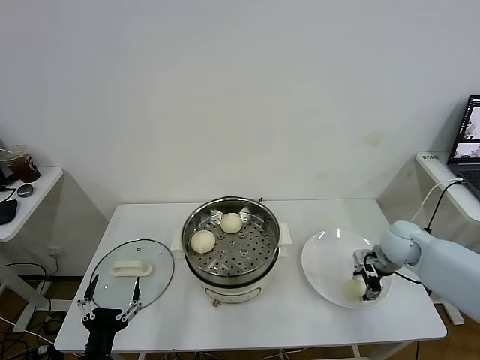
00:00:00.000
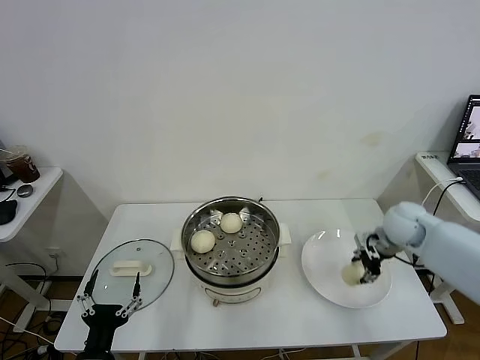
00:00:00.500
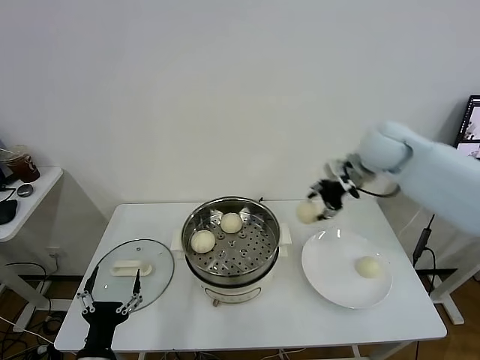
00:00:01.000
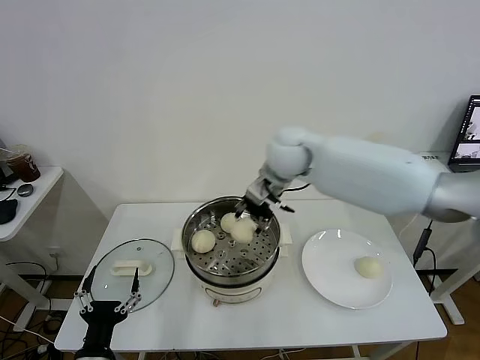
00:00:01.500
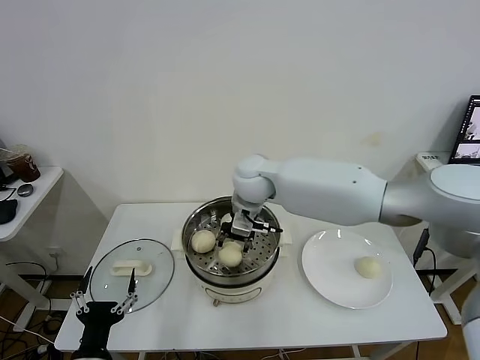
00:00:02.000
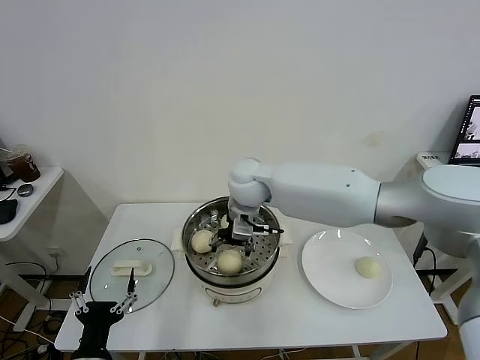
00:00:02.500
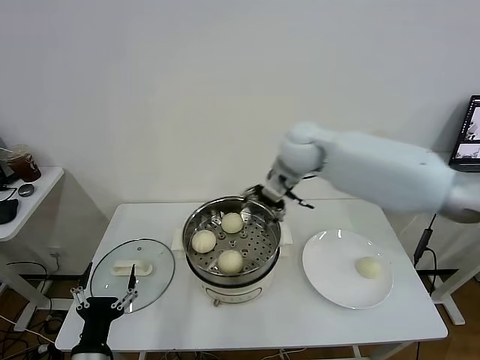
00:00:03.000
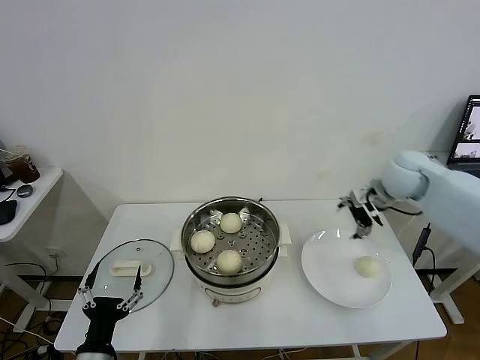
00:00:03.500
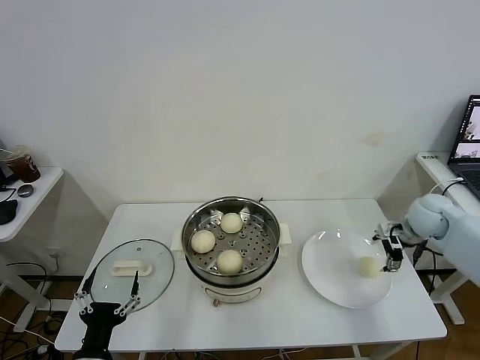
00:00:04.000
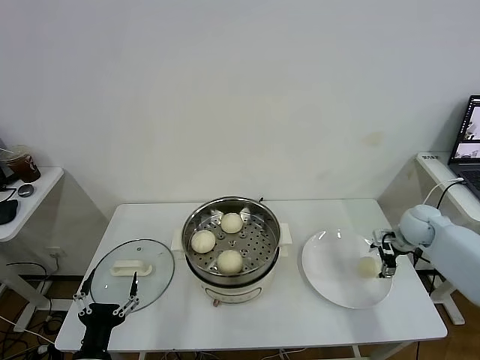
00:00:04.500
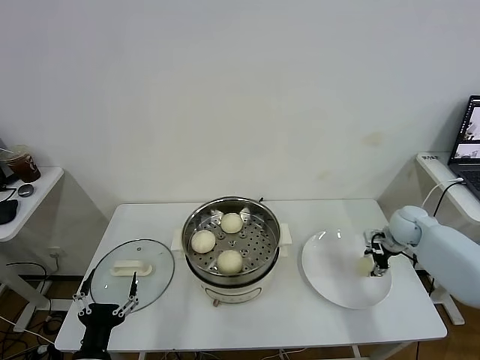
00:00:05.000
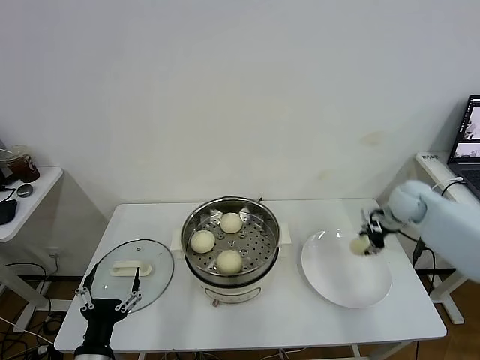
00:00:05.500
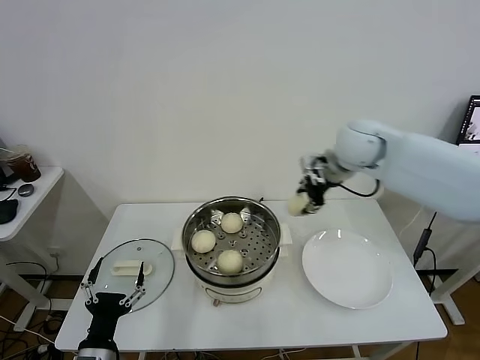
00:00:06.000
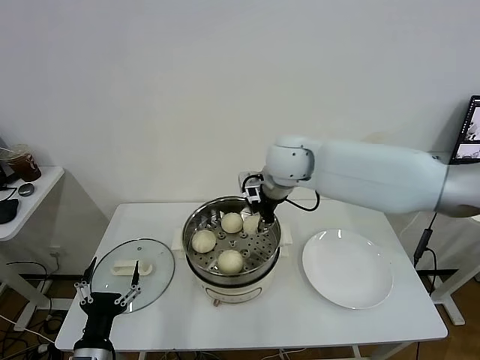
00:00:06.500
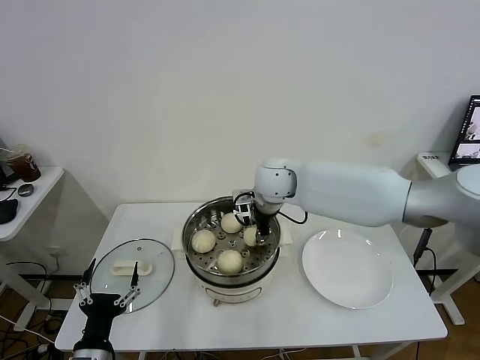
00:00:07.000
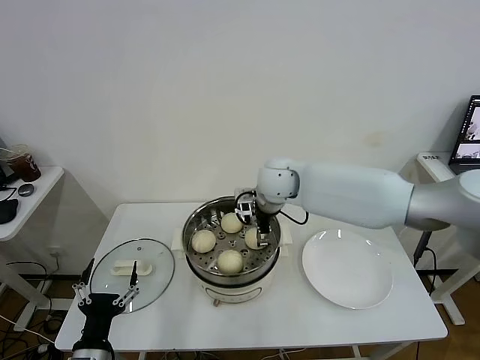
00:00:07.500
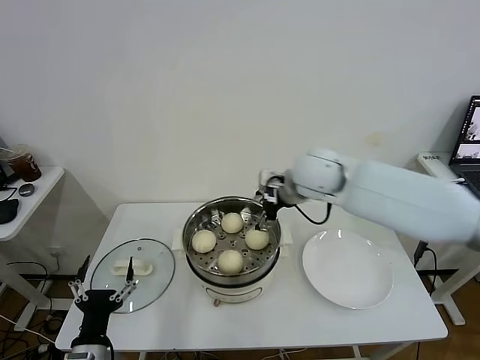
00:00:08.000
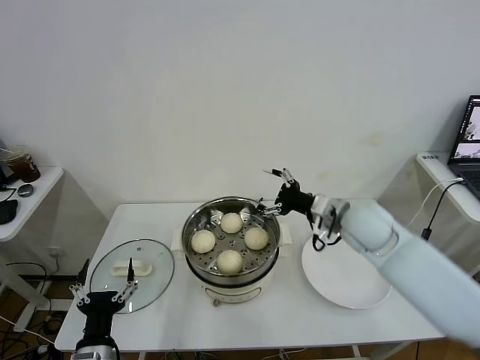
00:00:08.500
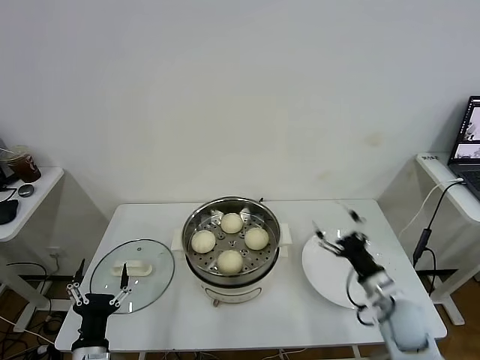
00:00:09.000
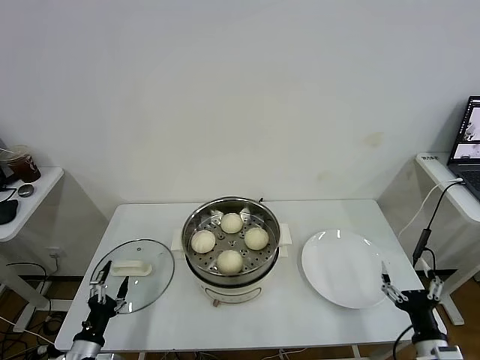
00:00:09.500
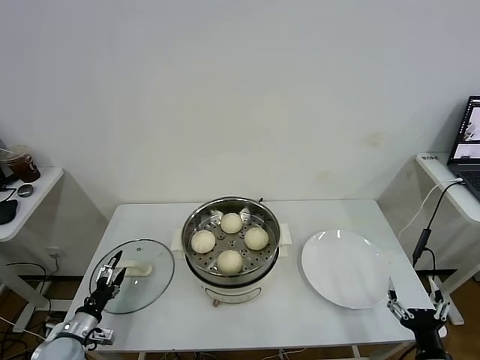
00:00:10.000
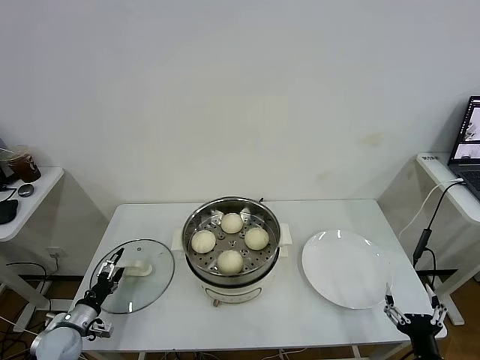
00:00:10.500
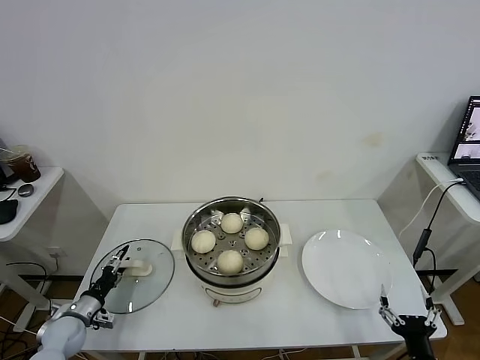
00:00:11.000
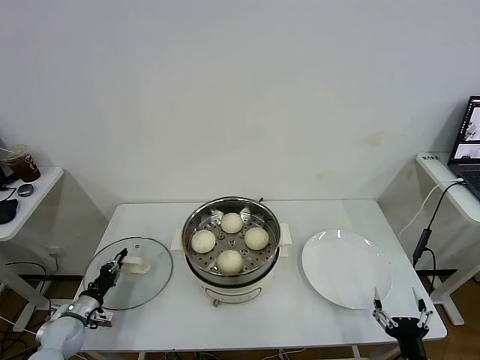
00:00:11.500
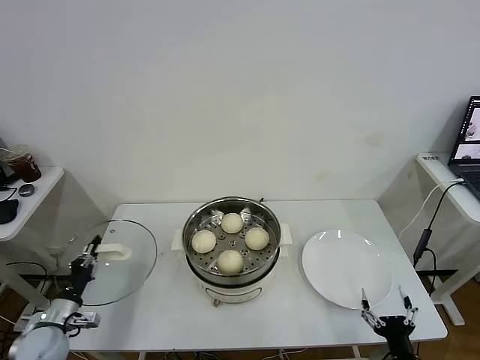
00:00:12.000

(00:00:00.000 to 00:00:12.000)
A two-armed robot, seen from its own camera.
Task of the whole recording: take steamed baozi put them in steamer.
Step, 00:00:00.500 - 00:00:02.500: Place the baozi on the steamer with right gripper.
Step, 00:00:03.000 - 00:00:05.000: Grasp the baozi in the plate with right gripper.
Step, 00:00:05.500 - 00:00:07.500: Place the baozi on the steamer with right gripper.
Step, 00:00:08.000 - 00:00:11.500: Grasp the pot lid with left gripper.
00:00:00.000 - 00:00:02.000: The right gripper shifts some 40 cm to the left and upward.
00:00:02.000 - 00:00:04.000: The right gripper travels to the right by about 40 cm, and opens up.
00:00:04.000 - 00:00:06.000: The right gripper goes some 30 cm to the left and upward, and closes its fingers.
00:00:06.000 - 00:00:08.000: The right gripper moves to the left, roughly 5 cm, and opens up.
00:00:08.000 - 00:00:10.000: The right gripper shifts about 50 cm backward, downward and to the right. The left gripper is displaced to the left, downward and forward by some 20 cm.
00:00:10.000 - 00:00:12.000: The left gripper heads upward, covering roughly 5 cm, and closes its fingers.

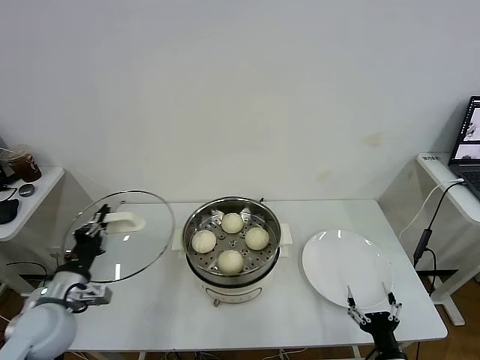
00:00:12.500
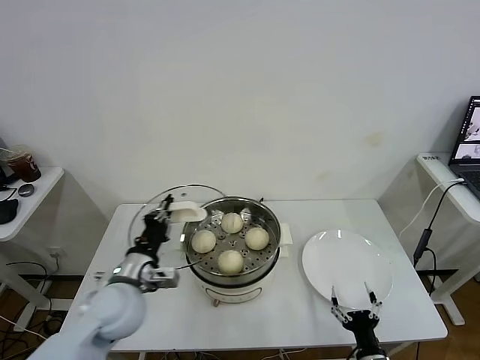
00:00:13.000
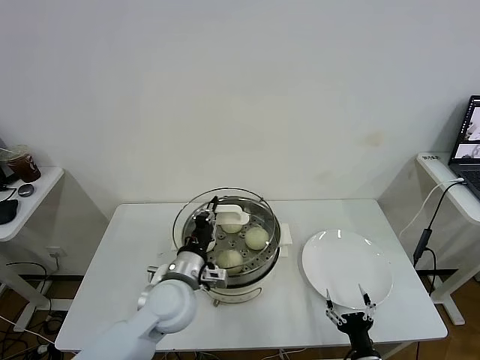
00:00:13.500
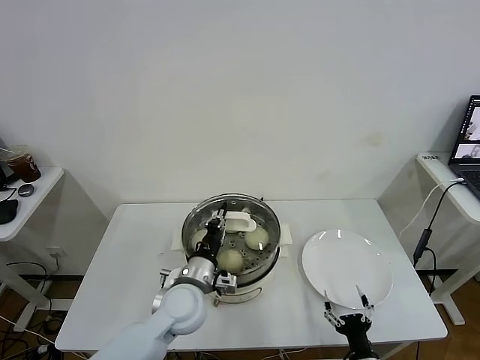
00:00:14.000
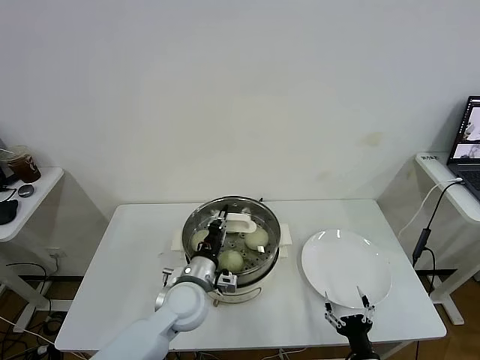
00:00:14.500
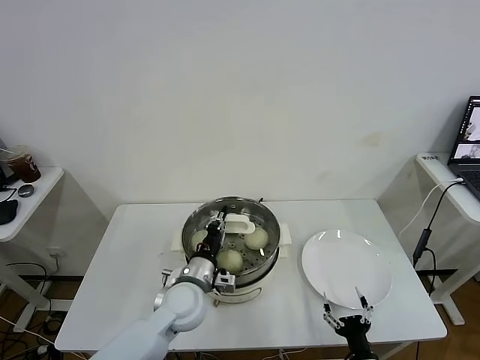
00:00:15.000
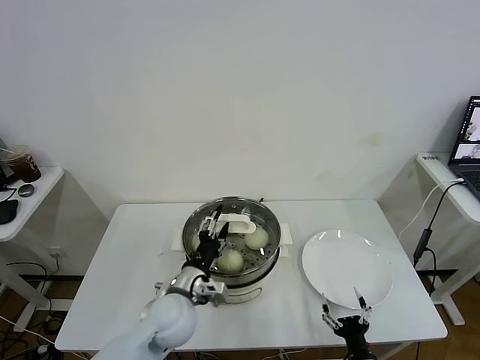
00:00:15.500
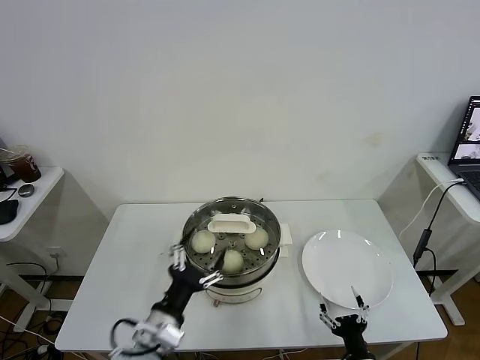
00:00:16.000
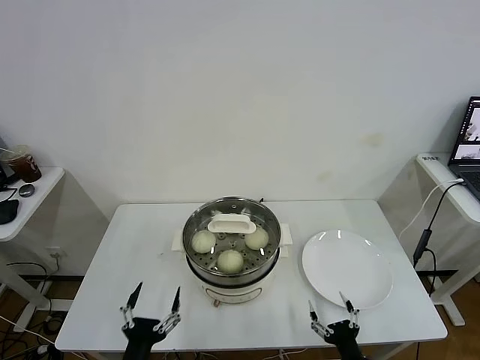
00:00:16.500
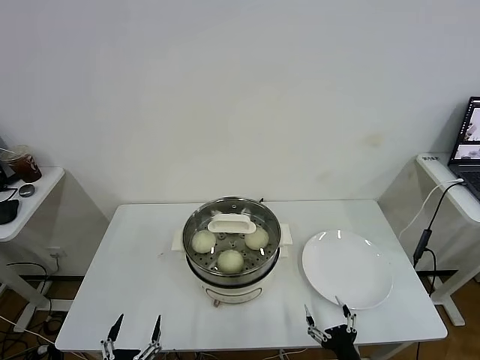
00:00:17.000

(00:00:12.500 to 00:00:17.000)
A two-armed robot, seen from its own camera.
Task of the whole recording: take steamed baozi put them in steamer.
Step, 00:00:12.500 - 00:00:15.500: Place the pot lid on the steamer with left gripper.
00:00:12.500 - 00:00:14.500: The left gripper moves to the right, approximately 25 cm; the right gripper moves roughly 5 cm.
00:00:14.500 - 00:00:17.000: The left gripper is displaced backward and to the left by about 30 cm, and opens.
